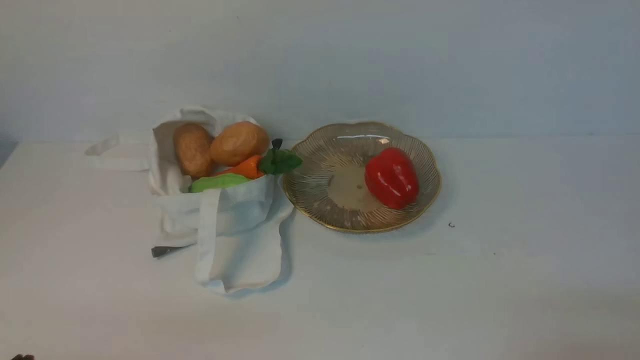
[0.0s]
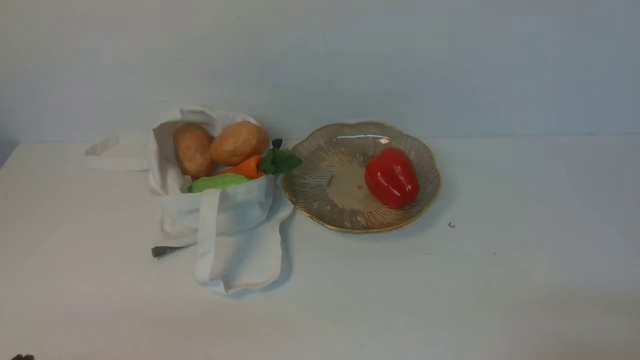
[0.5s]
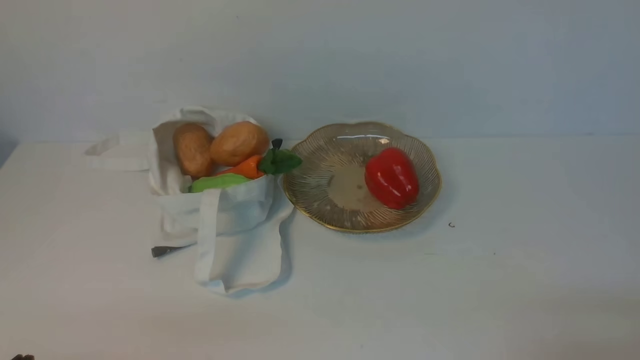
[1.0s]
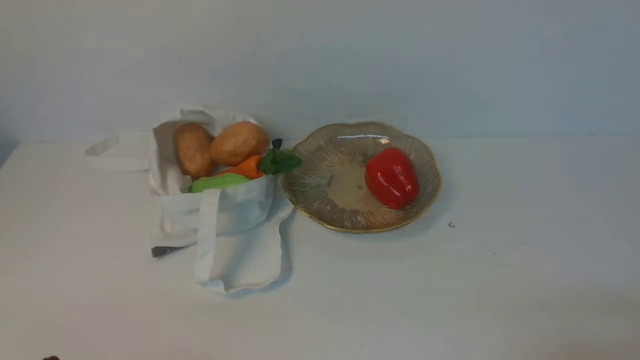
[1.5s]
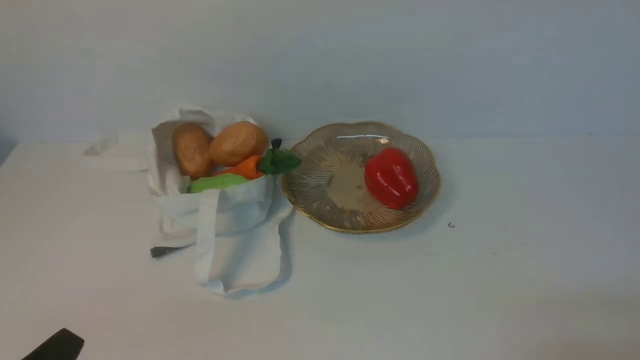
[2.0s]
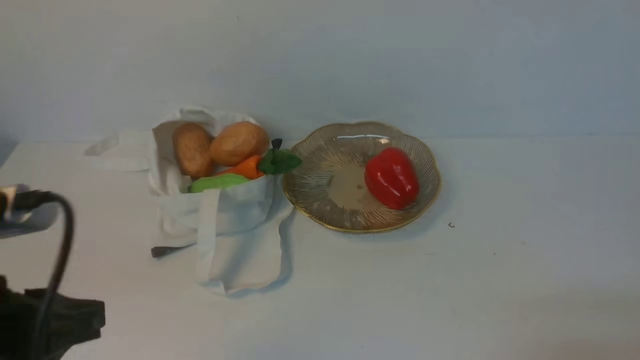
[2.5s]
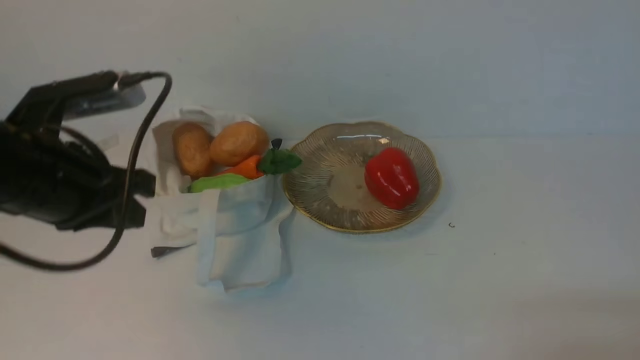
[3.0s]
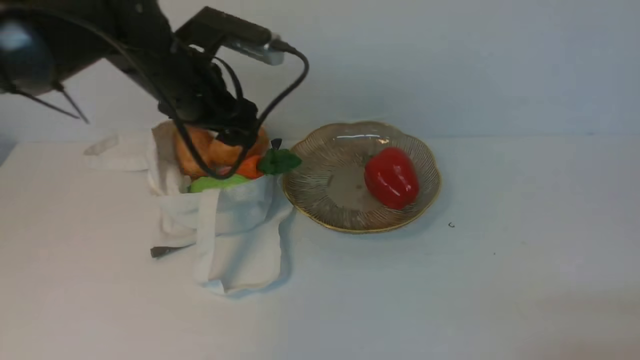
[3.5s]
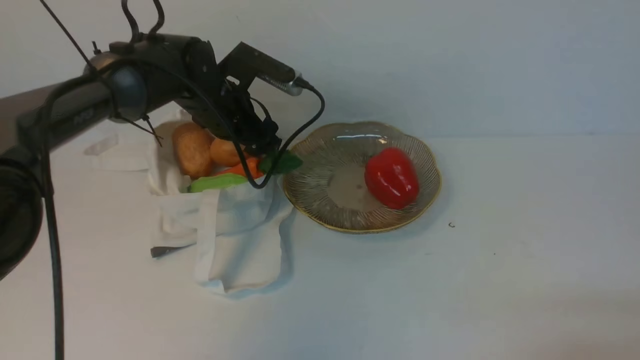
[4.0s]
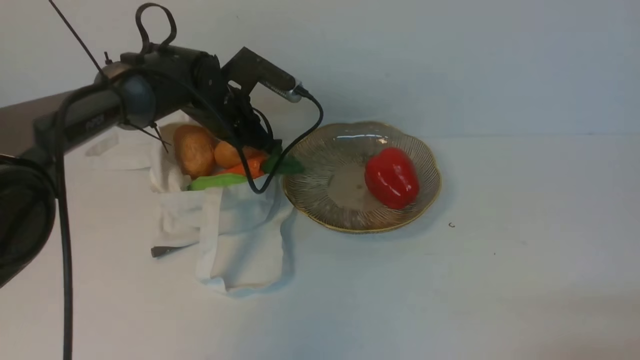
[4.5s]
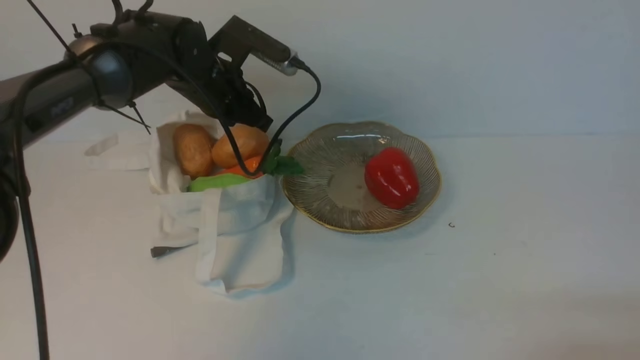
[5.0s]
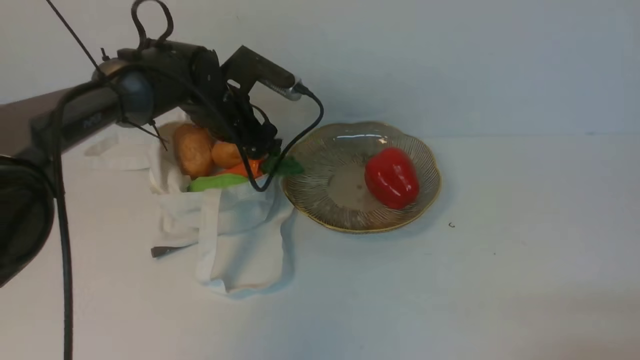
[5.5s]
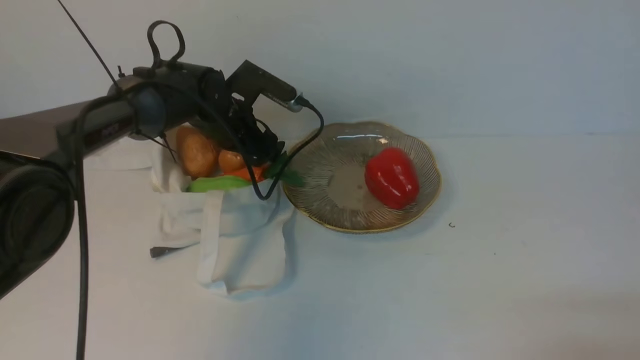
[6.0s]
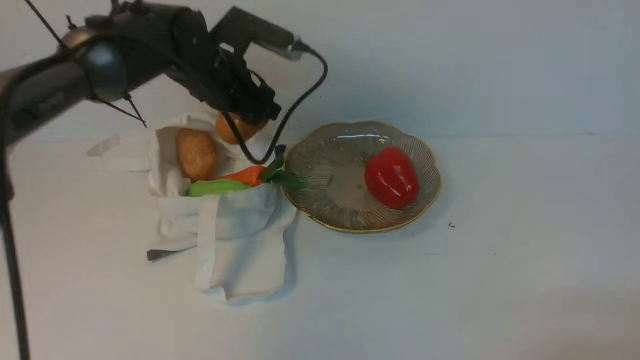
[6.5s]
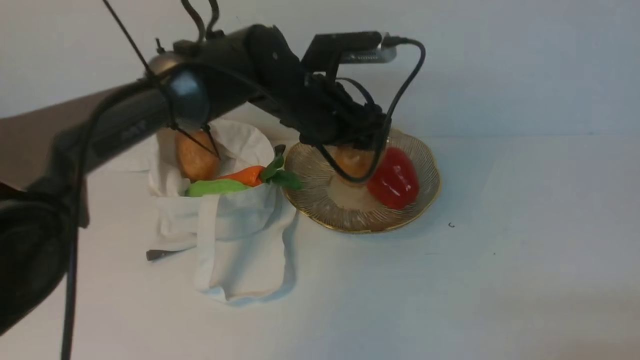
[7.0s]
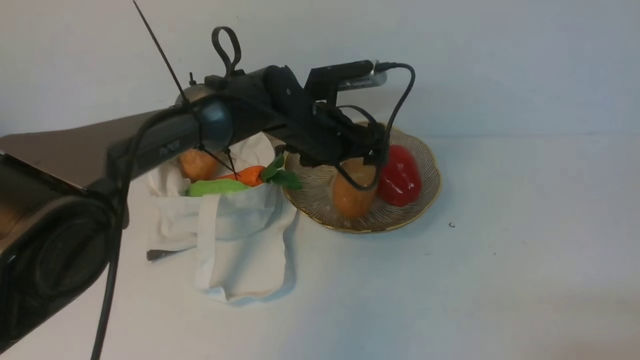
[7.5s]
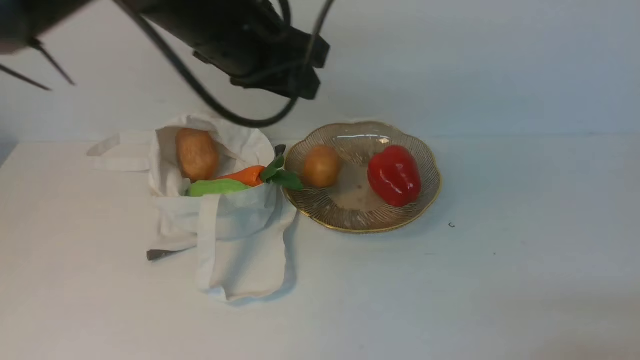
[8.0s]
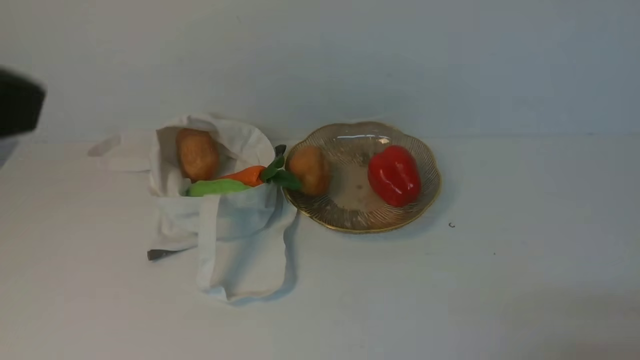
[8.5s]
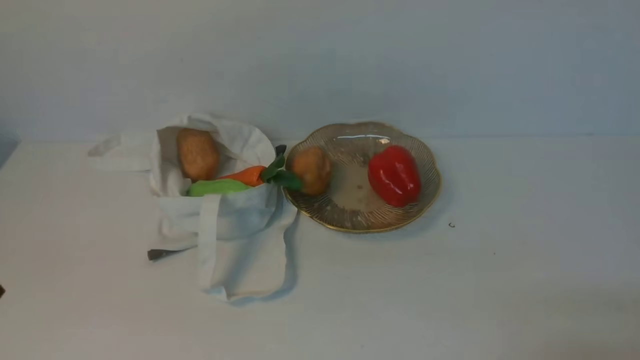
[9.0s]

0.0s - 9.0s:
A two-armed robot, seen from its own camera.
Task of the whole recording: take vegetables from cloth bag on white table place on plate.
Step, 0.0s - 5.5s: Grasp the potato with left gripper.
Step, 6.0s - 7.5s: Place the potato on the plate with left gripper.
2.0s - 4.5s: The left gripper heads forward, covering approximately 40 cm, and opens, then closes again.
4.5s - 7.0s: The left gripper shifts some 10 cm to the right, and opens up.
7.0s - 9.0s: The left gripper heads backward and to the left, covering roughly 50 cm, and closes its fingers.

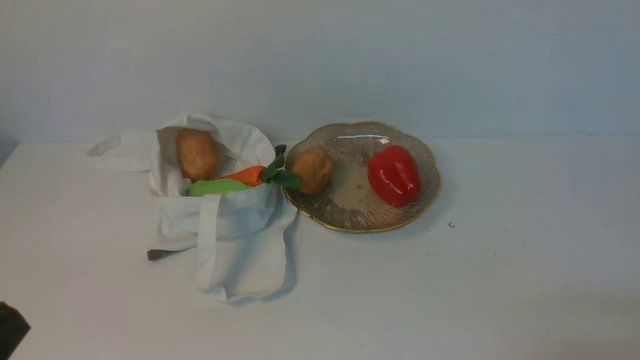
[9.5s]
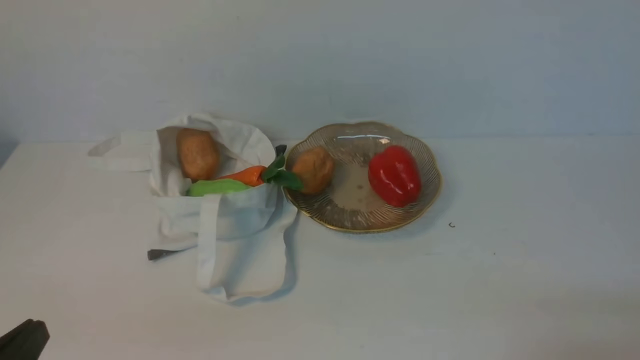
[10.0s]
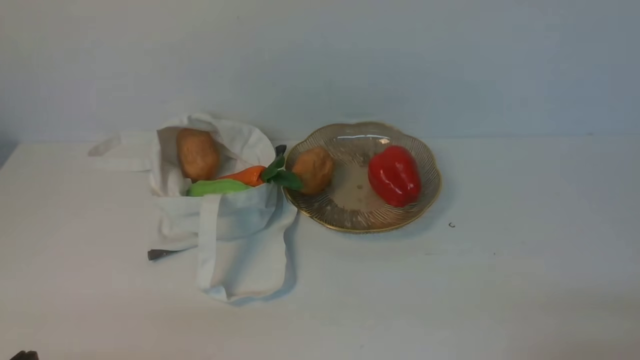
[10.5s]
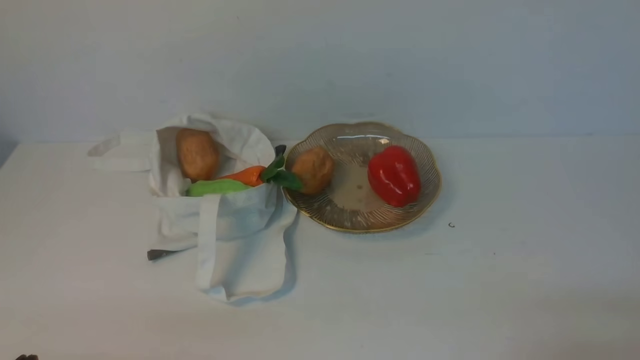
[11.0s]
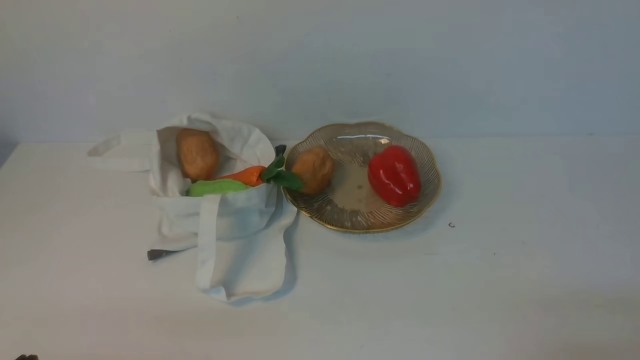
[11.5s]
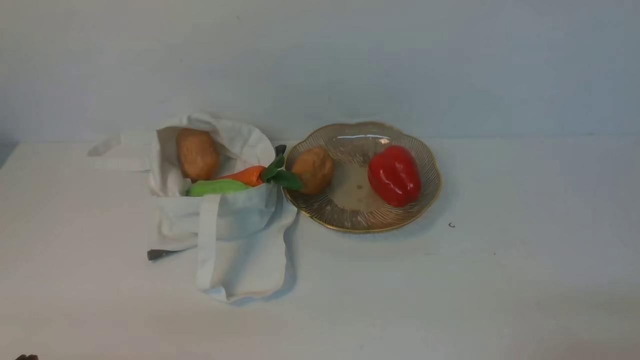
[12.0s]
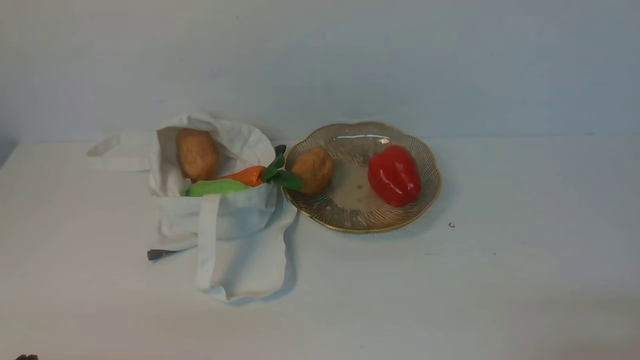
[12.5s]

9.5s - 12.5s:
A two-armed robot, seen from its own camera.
Task of the whole recording: take vegetables from cloth bag on white table place on plate.
11.0s - 12.5s: Both grippers stay put.

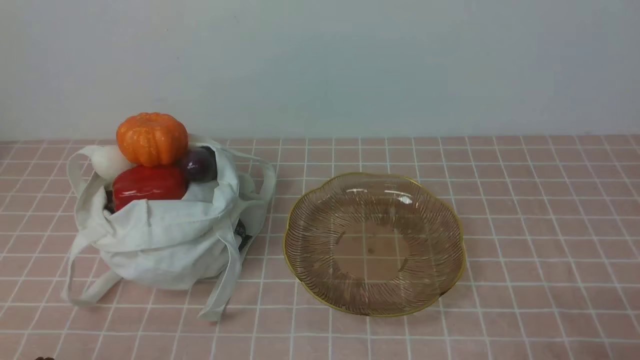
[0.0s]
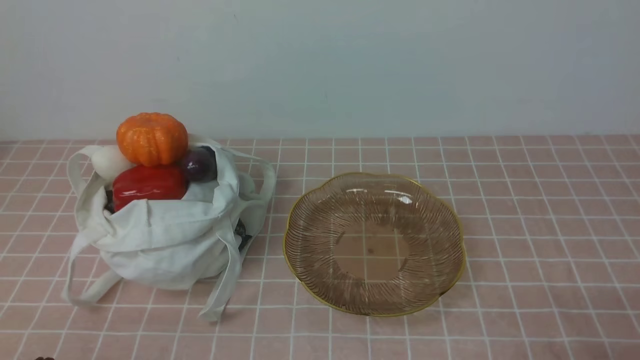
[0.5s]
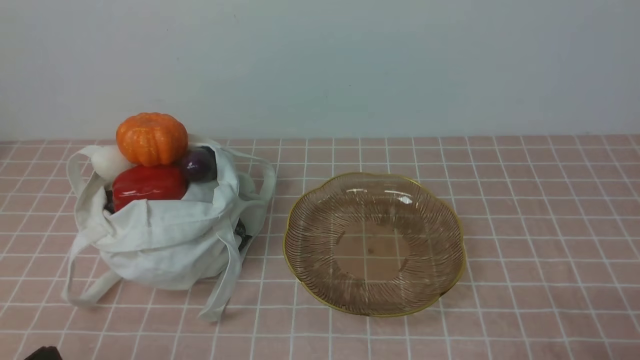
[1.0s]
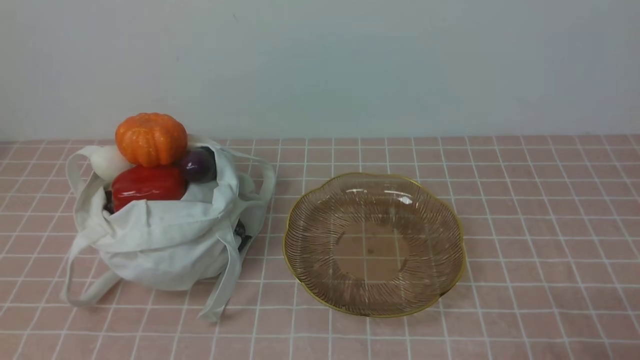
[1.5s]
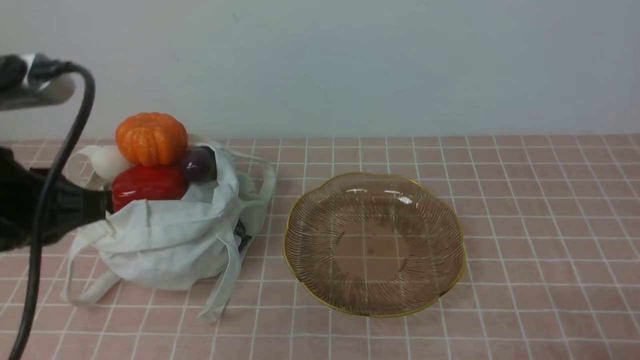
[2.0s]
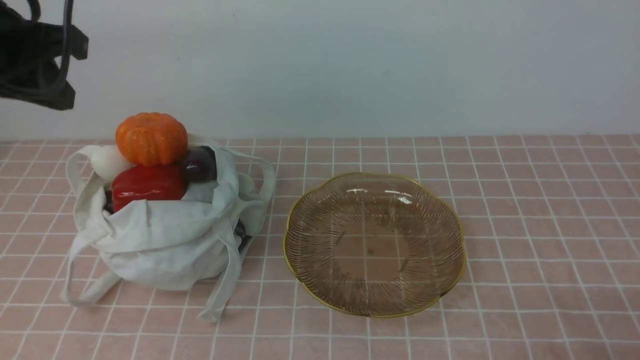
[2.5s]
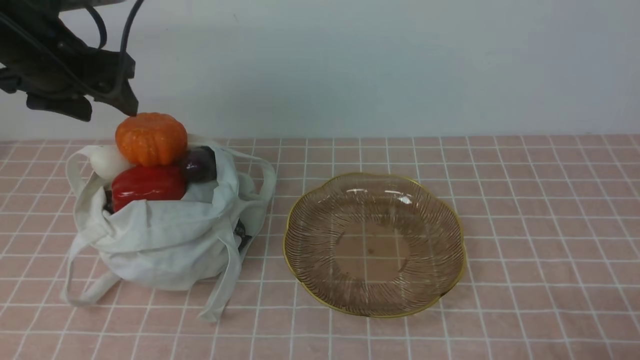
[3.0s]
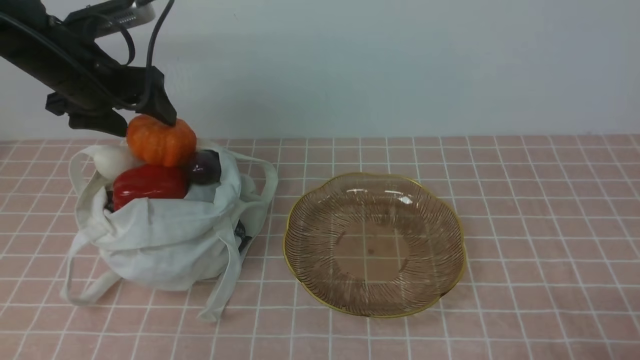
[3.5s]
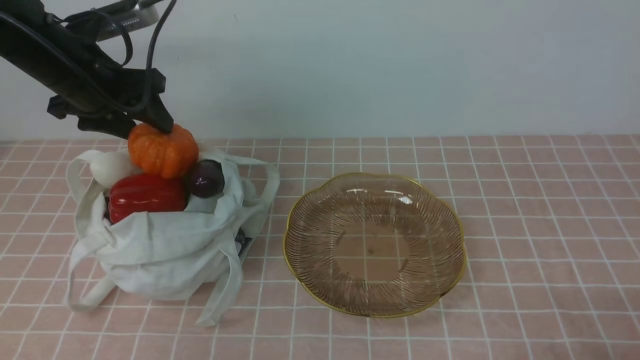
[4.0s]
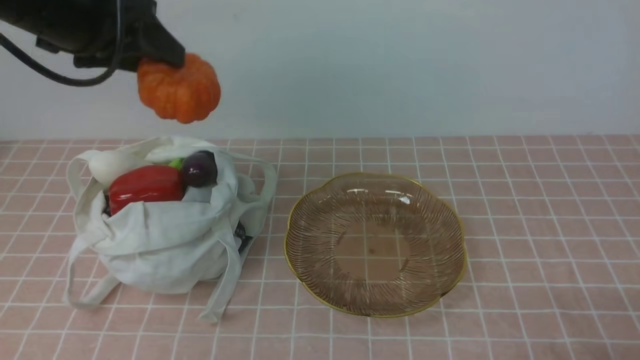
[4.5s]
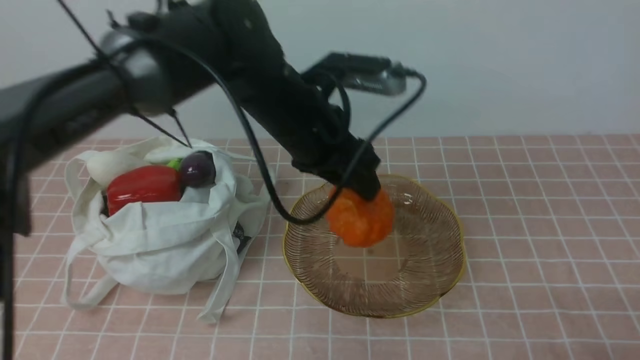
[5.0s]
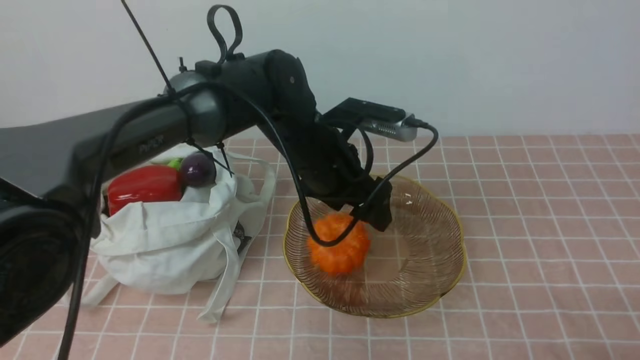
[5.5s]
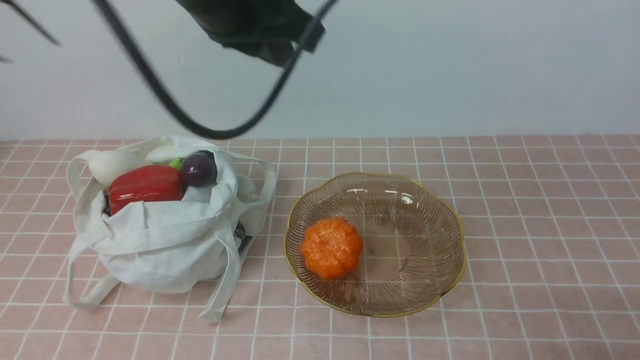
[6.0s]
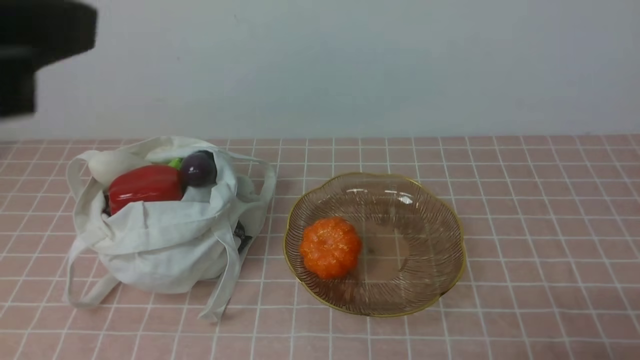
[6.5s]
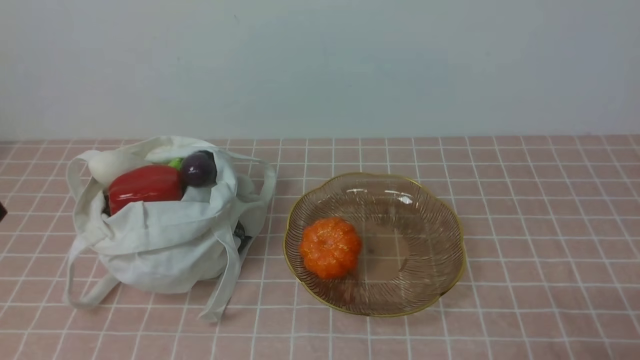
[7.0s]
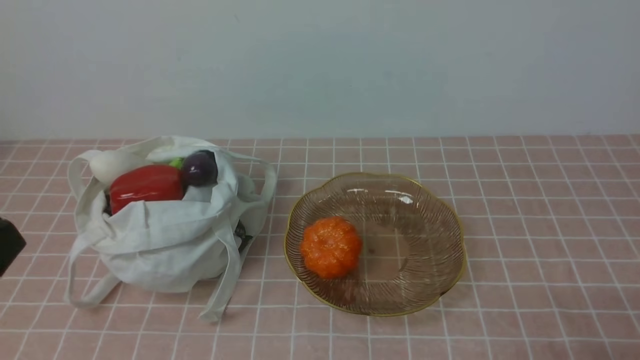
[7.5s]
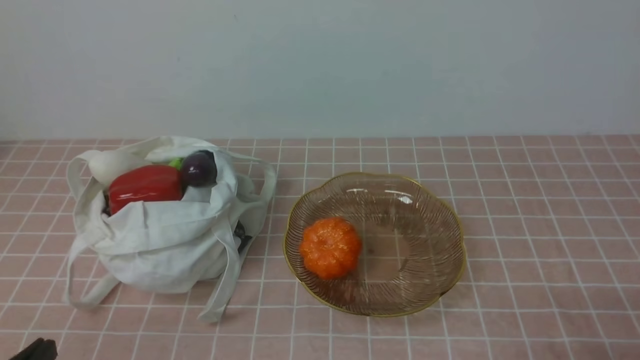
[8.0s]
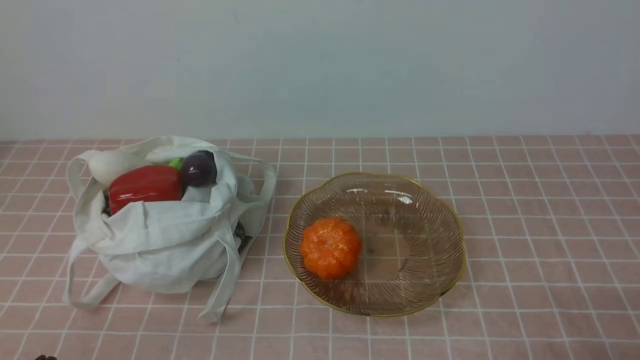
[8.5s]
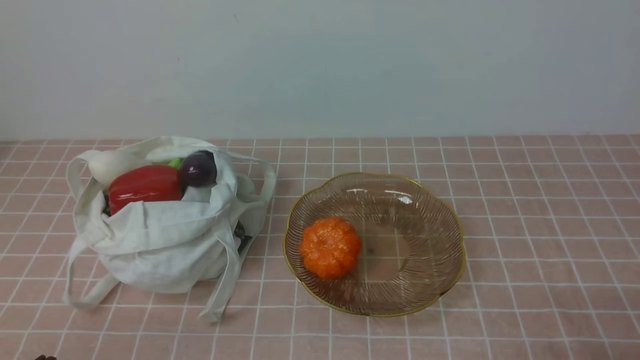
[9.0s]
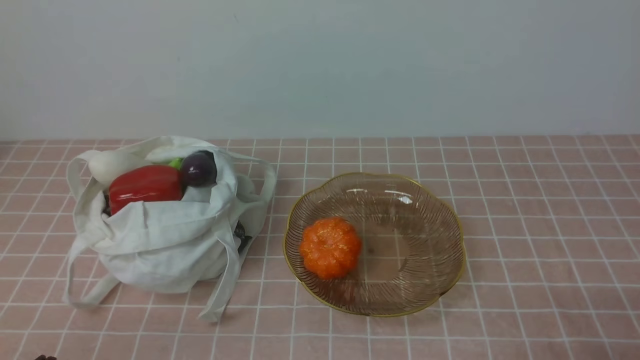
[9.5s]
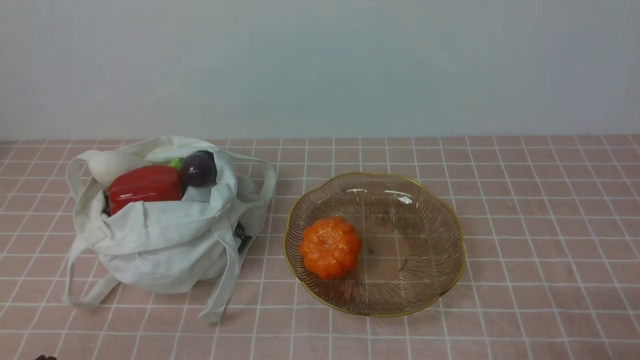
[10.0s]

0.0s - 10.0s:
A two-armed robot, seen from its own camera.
Task of the whole recording: take vegetables from bag on pink coffee tablecloth place on plate.
Step, 0.0s - 3.5s: Grasp the pumpkin with left gripper.
Step, 4.0s - 5.5s: Place the pumpkin on the plate with left gripper.
0.0s - 2.0s: The left gripper heads upward and forward, covering about 25 cm.
2.0s - 4.0s: The left gripper heads forward, covering about 25 cm, and opens up.
4.0s - 6.0s: The left gripper is displaced to the right, upward and backward by some 25 cm, and closes its fingers.
6.0s - 8.0s: The left gripper shifts some 40 cm downward, backward and to the left.
